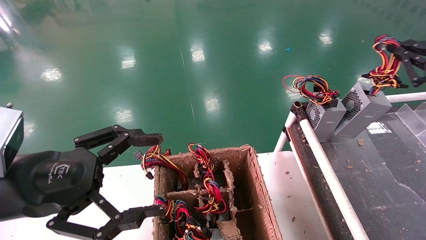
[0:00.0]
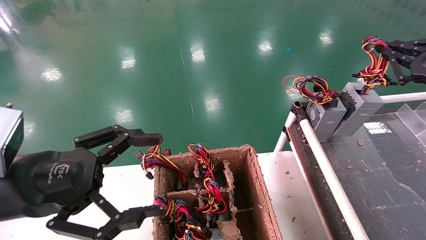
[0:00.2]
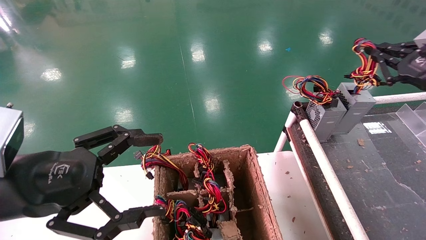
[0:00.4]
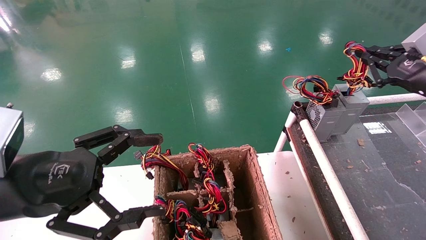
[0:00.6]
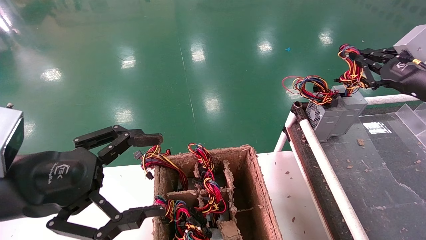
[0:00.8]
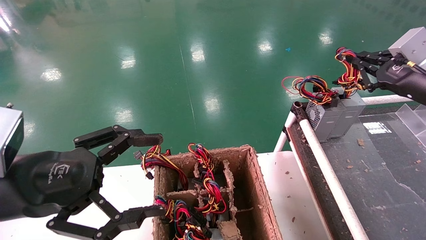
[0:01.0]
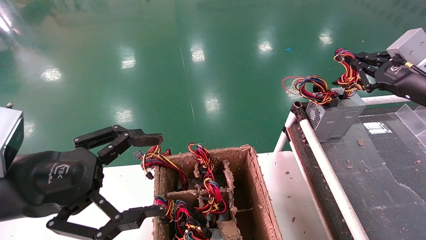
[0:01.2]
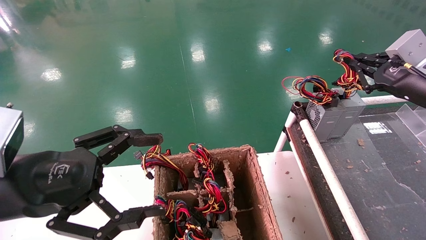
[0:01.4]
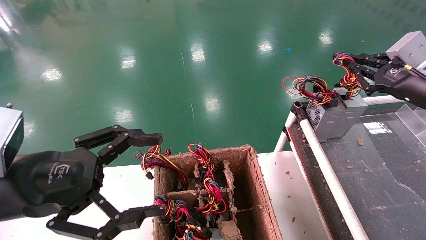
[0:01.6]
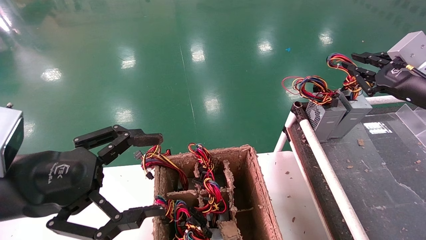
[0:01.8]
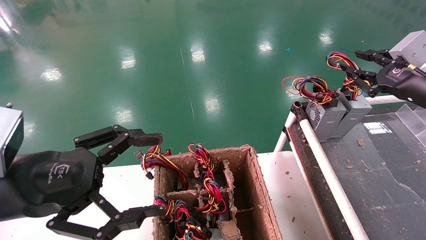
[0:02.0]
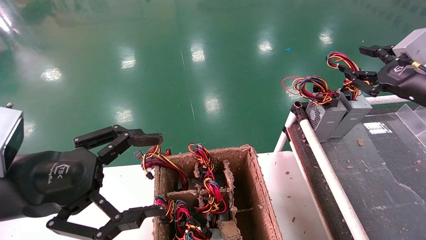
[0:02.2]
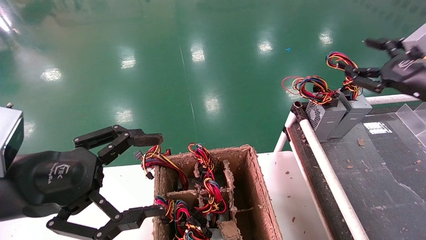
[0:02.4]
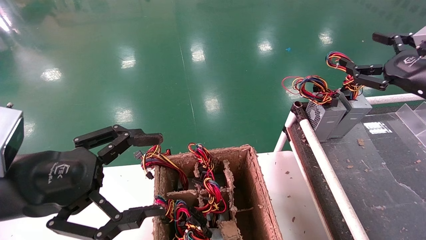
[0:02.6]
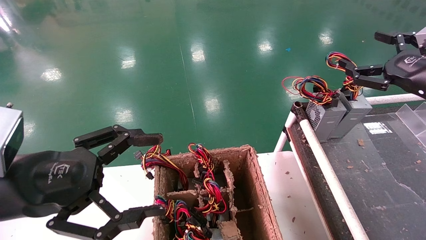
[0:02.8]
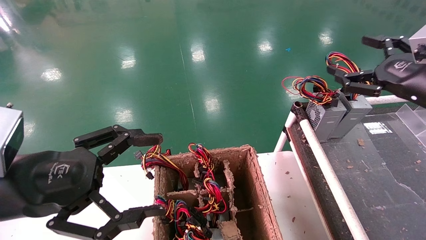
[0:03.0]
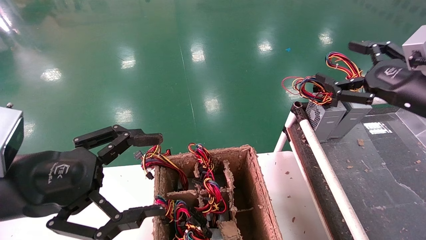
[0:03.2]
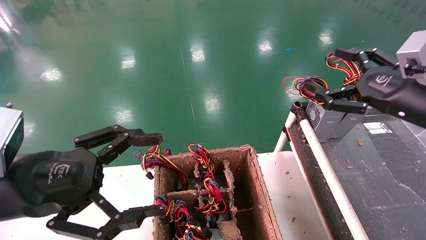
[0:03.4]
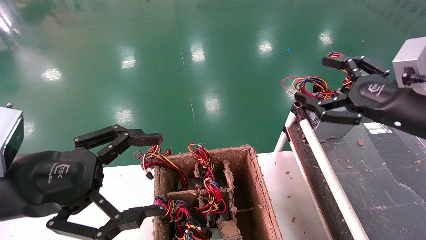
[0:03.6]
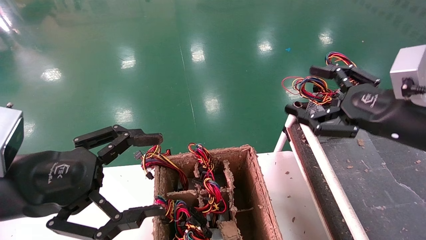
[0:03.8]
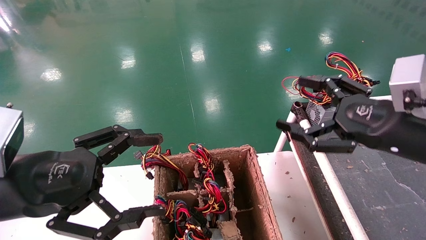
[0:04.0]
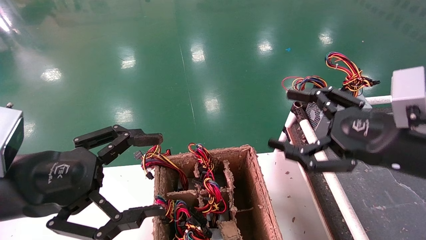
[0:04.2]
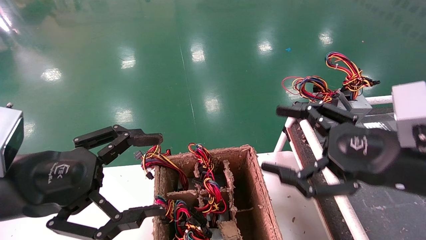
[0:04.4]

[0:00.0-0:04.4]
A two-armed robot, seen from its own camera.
Step, 0:00.0 to 0:02.2: Place the power supply on the operating table.
0:00.0 to 0:01.4: The right gripper moves roughly 5 cm.
0:01.4 to 0:03.0: The right gripper opens.
0:03.0 to 0:04.4: The right gripper heads to the left, backward and downward, covering about 15 cm.
